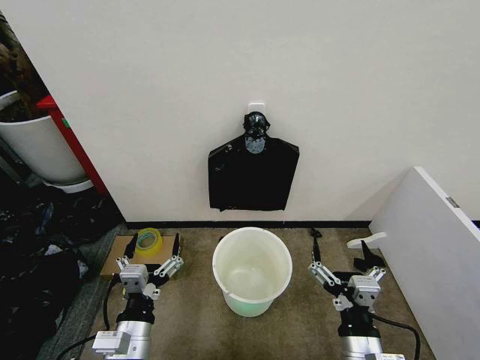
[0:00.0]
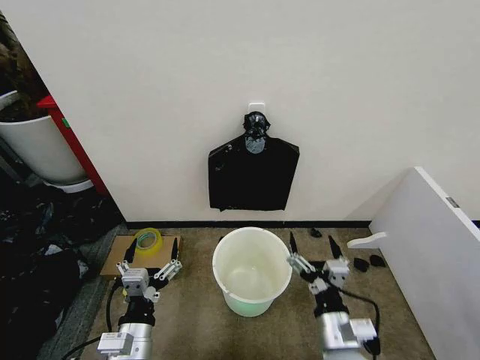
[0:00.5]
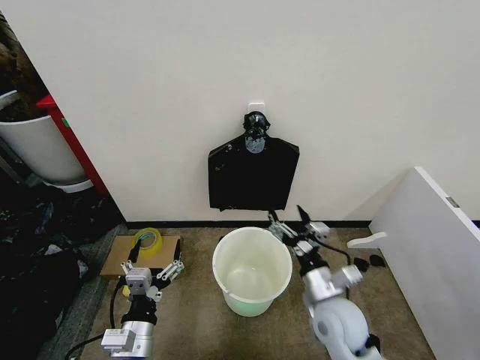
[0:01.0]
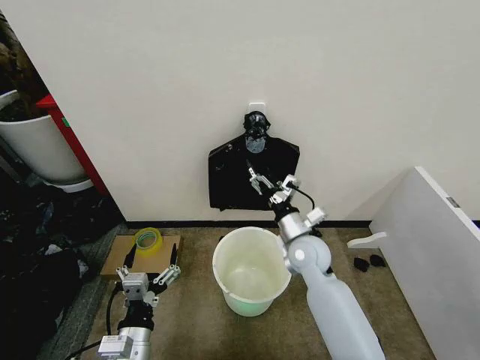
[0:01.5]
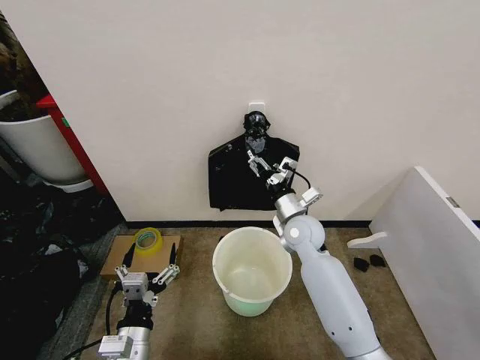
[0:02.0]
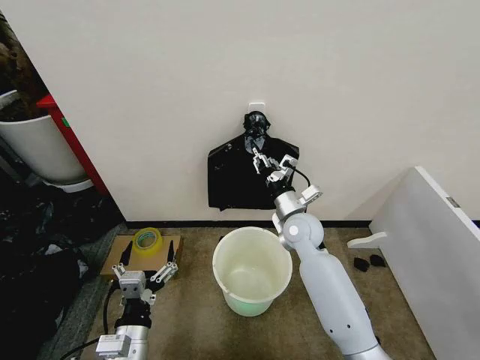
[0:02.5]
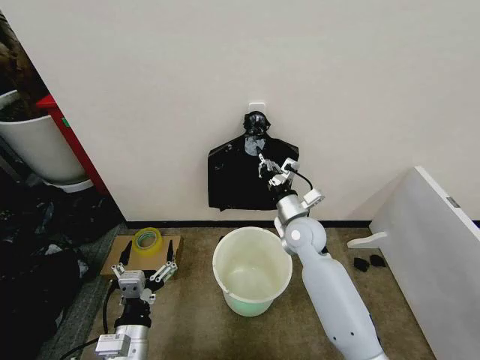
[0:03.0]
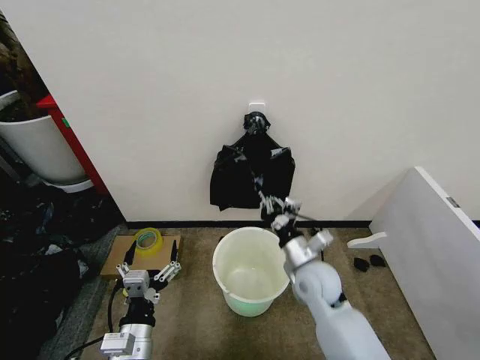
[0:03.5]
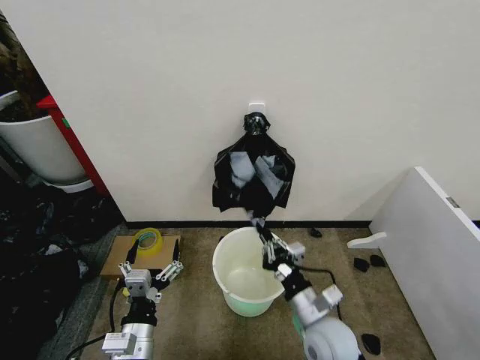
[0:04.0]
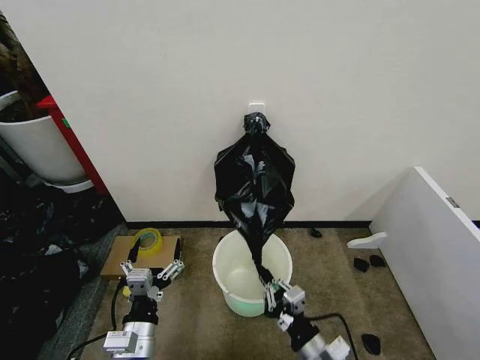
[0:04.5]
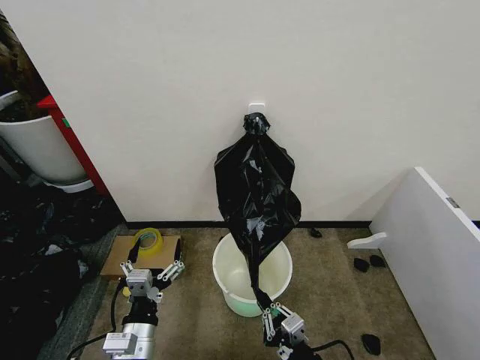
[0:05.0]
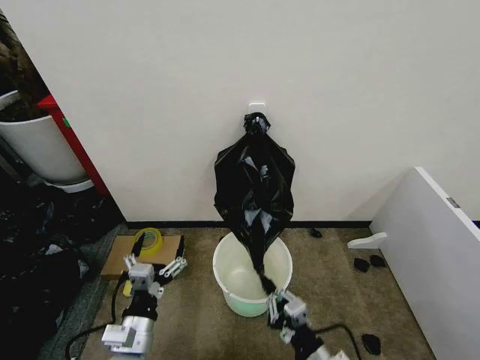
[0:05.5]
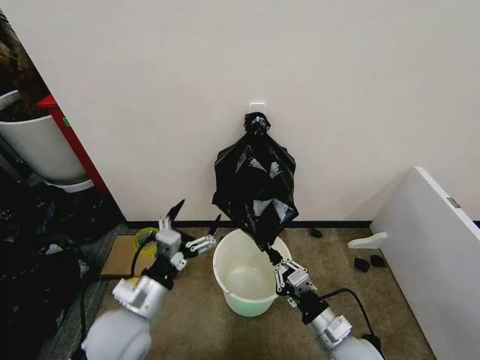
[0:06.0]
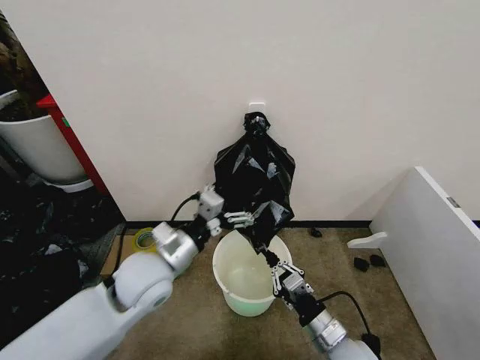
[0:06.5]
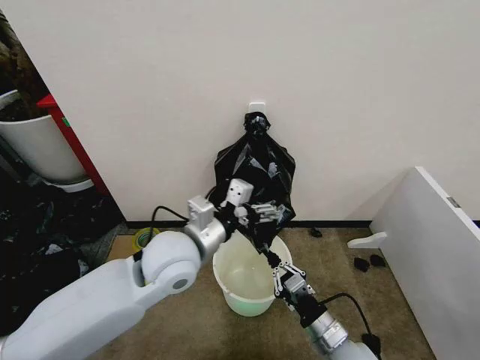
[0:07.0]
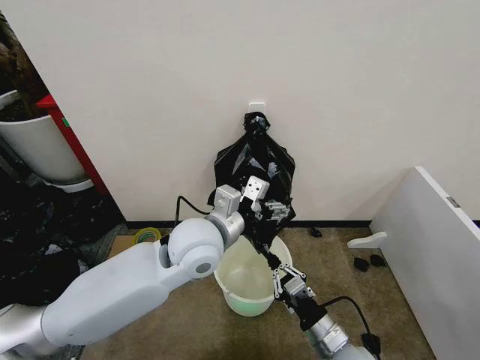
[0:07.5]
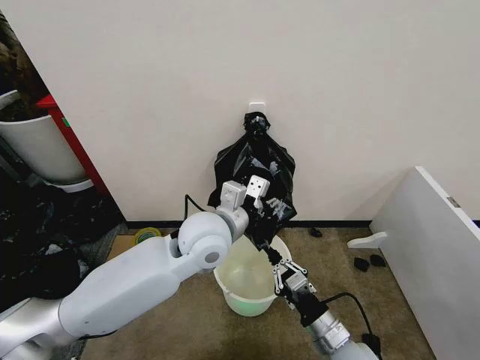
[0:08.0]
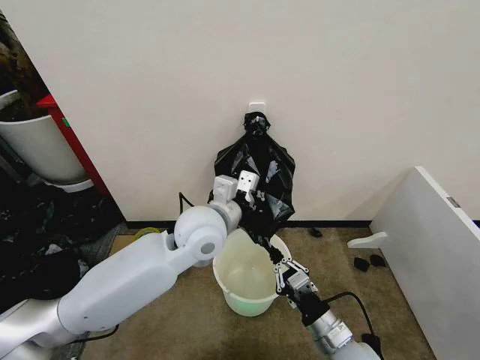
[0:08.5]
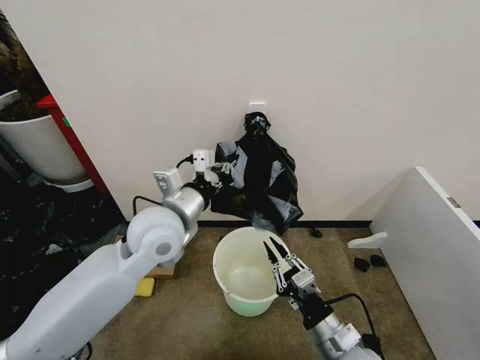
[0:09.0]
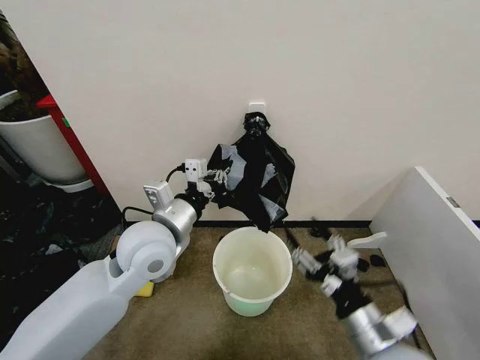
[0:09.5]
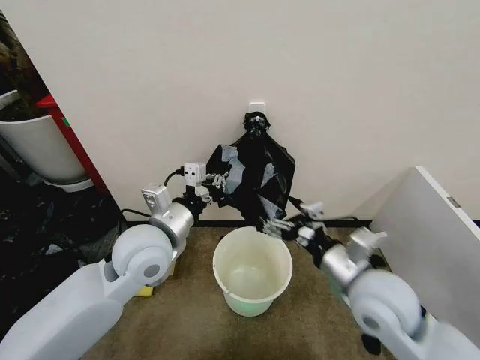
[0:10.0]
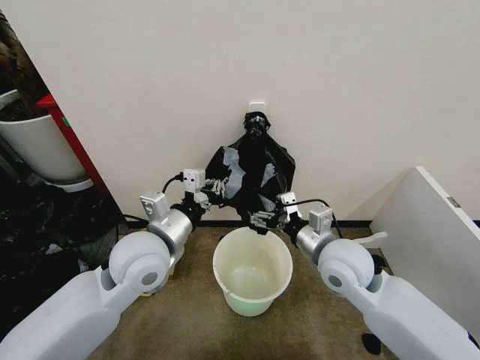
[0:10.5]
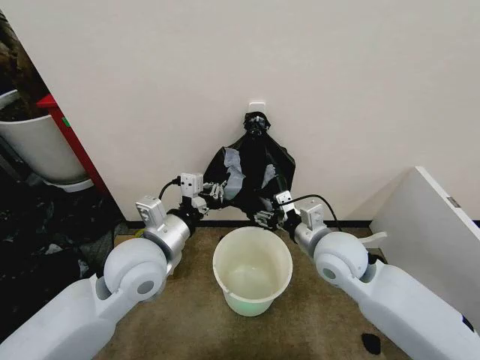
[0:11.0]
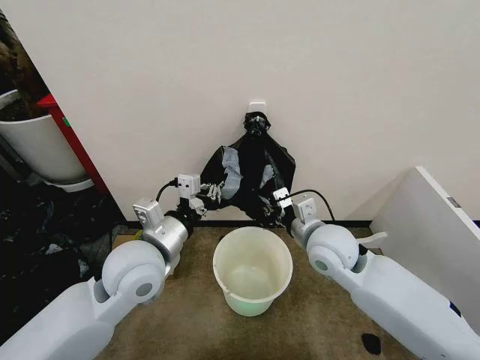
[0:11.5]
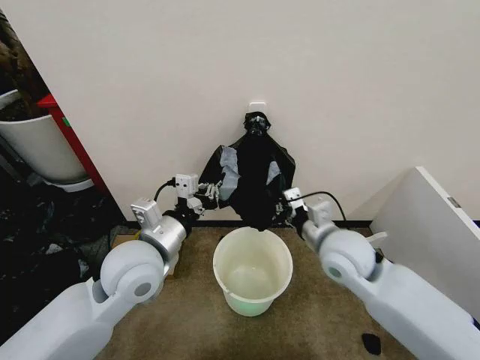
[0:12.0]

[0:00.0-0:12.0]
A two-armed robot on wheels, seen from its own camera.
Task of the whole recording: Place the garbage bag over the trash bin.
0:02.0 to 0:04.0: The right gripper heads backward, covering approximately 20 cm, and closes.
0:04.0 to 0:06.0: The right gripper moves roughly 10 cm backward and comes back; the left gripper shifts some 10 cm forward and upward.
0:06.0 to 0:08.0: The left gripper goes approximately 25 cm to the right, forward and upward, and closes.
0:08.0 to 0:10.0: The right gripper heads upward and forward, covering roughly 20 cm, and opens up. Meanwhile the left gripper goes about 10 cm to the left, and closes its fingers.
0:10.0 to 0:12.0: The right gripper goes approximately 10 cm forward, and closes.

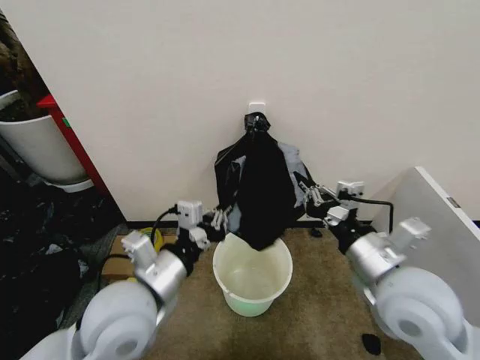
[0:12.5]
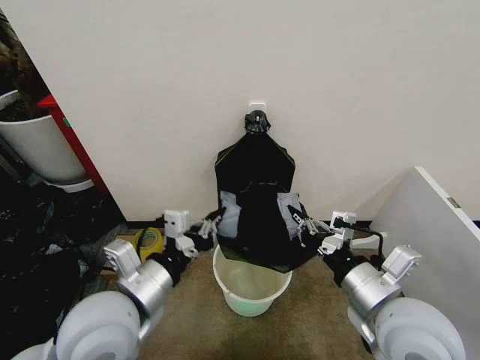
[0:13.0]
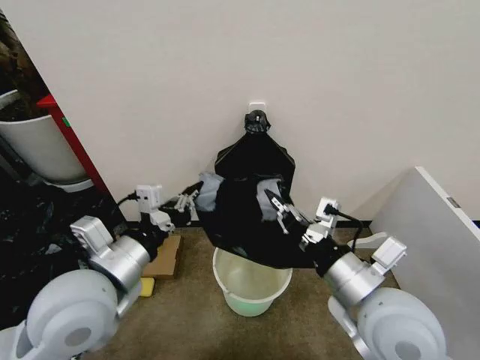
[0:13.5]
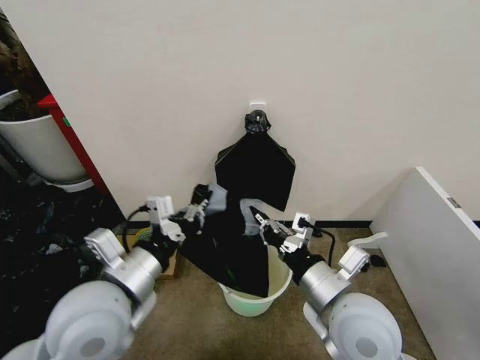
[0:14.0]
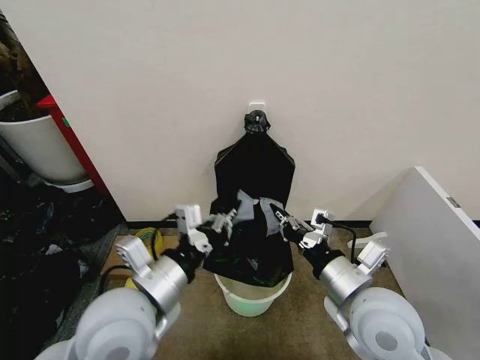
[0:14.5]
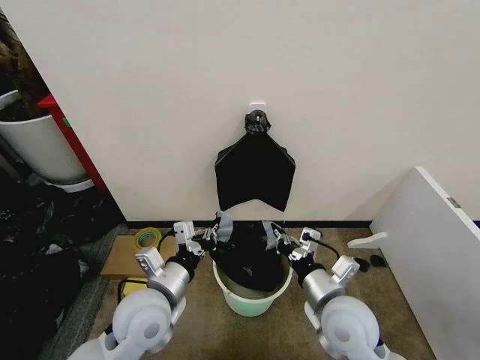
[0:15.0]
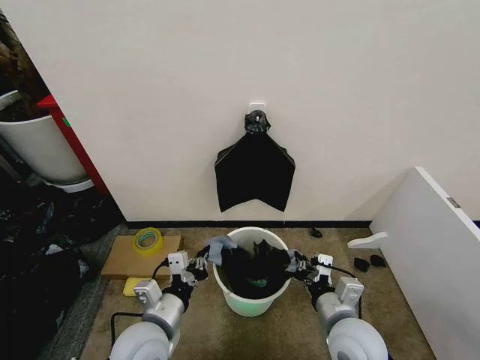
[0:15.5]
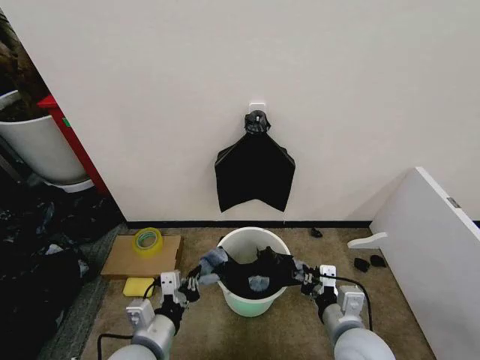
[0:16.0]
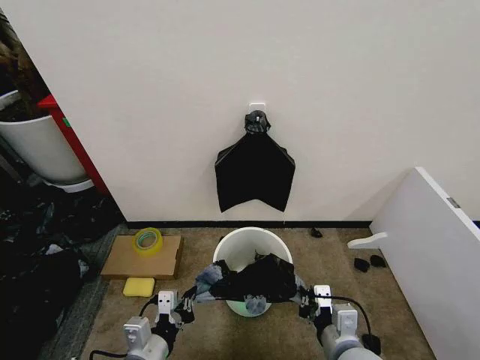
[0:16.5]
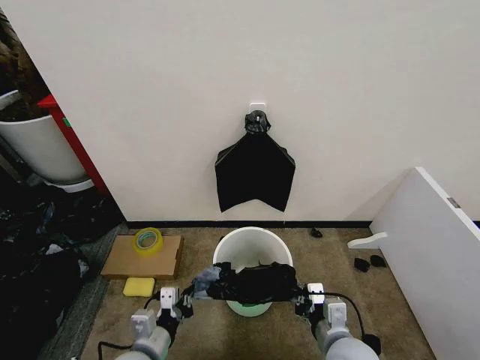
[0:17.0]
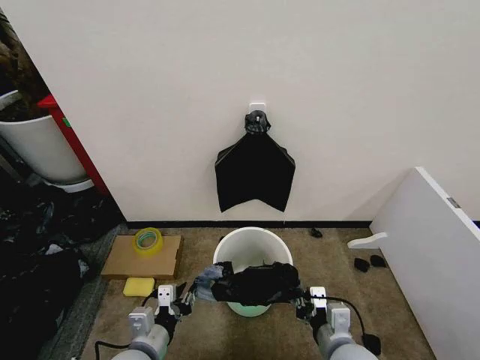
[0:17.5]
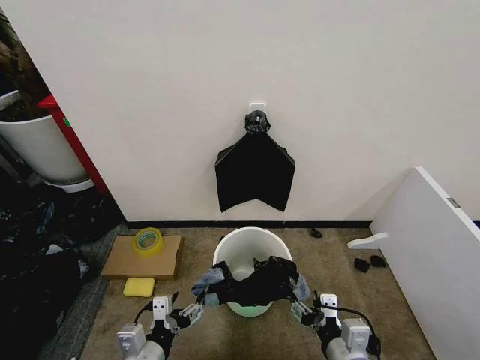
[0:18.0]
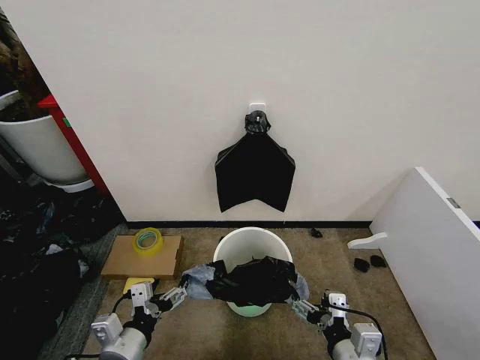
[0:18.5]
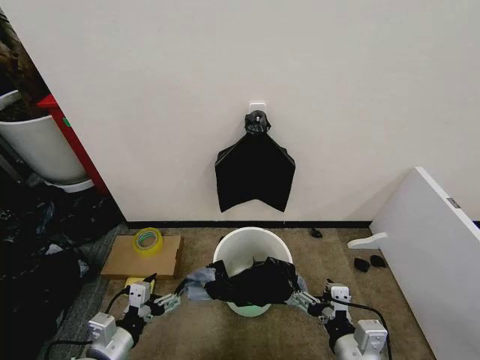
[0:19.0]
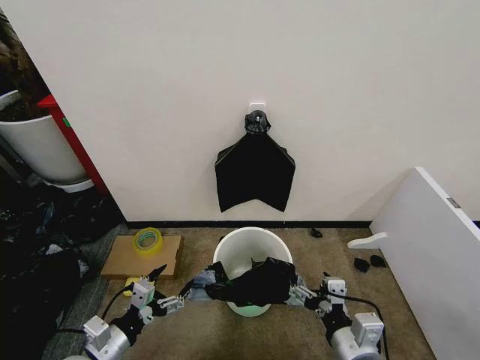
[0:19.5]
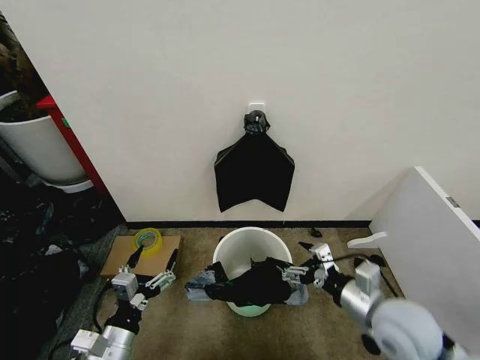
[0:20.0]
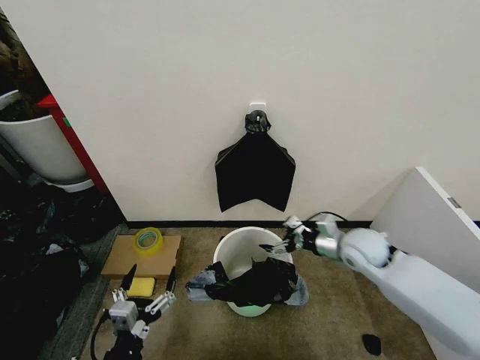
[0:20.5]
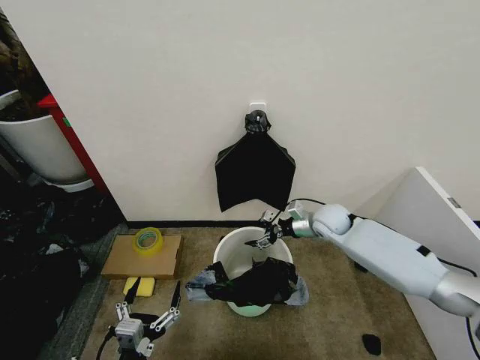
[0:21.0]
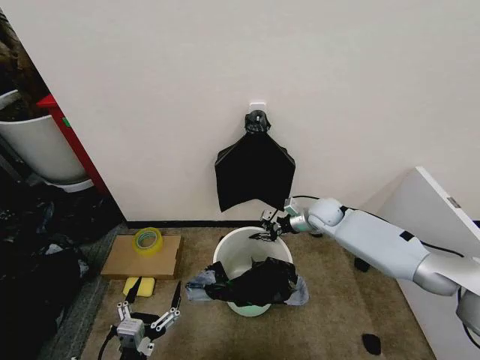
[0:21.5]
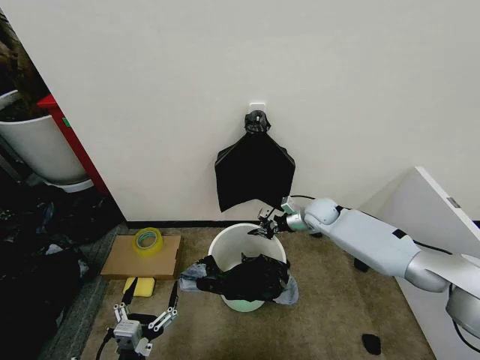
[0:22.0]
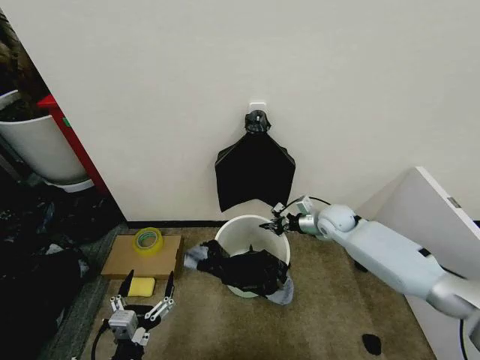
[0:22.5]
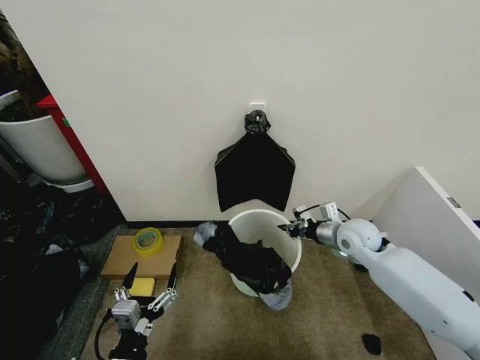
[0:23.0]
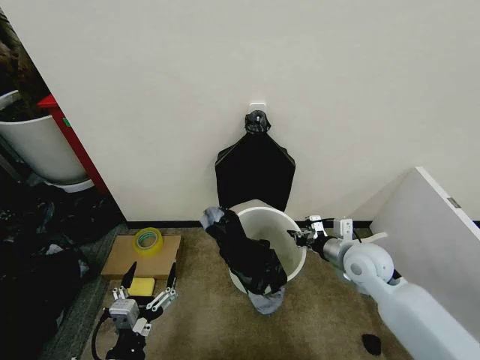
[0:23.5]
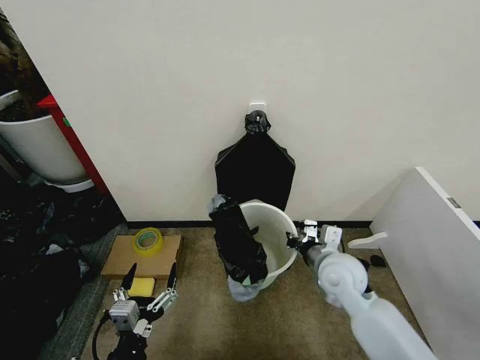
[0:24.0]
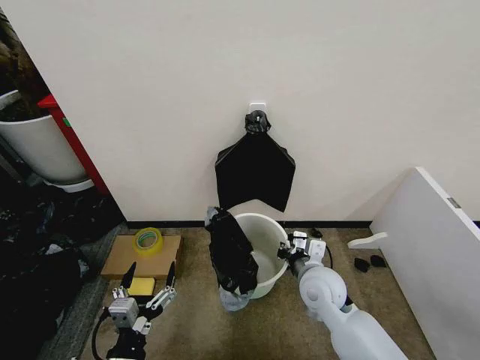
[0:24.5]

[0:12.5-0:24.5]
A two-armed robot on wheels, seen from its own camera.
Task of the whole recording: Place the garbage bag over the trash bin.
0:12.5 to 0:14.5: The right gripper shifts by about 5 cm.
0:14.5 to 0:16.5: The right gripper shifts roughly 15 cm downward and backward. The left gripper shifts some 15 cm downward.
0:16.5 to 0:18.5: The right gripper opens up; the left gripper opens up.
0:18.5 to 0:20.5: The right gripper heads forward, covering approximately 25 cm. The left gripper travels backward by roughly 5 cm.
0:20.5 to 0:22.5: The right gripper heads forward, covering some 10 cm, and closes its fingers.
0:22.5 to 0:24.5: The right gripper shifts approximately 20 cm backward and to the left.

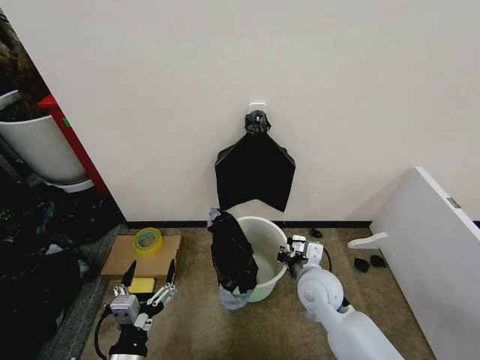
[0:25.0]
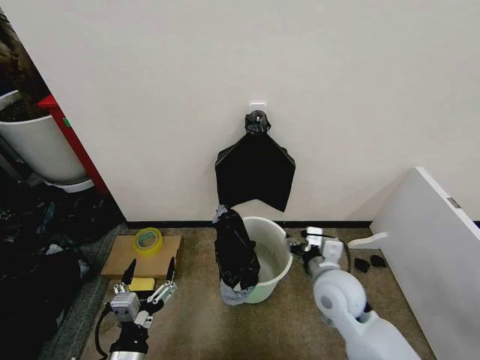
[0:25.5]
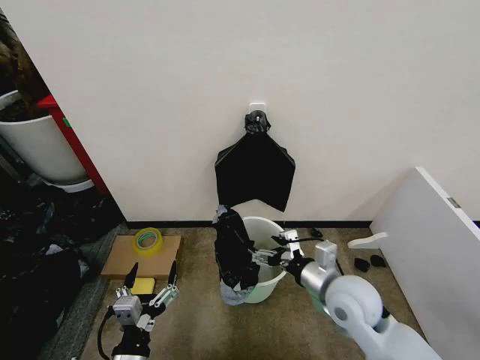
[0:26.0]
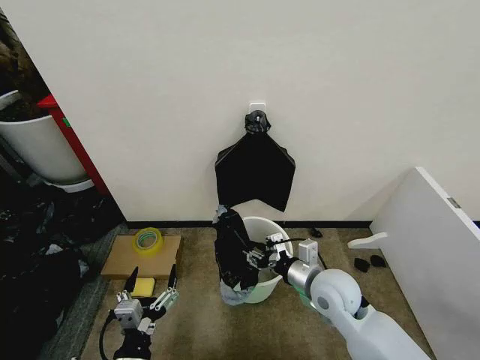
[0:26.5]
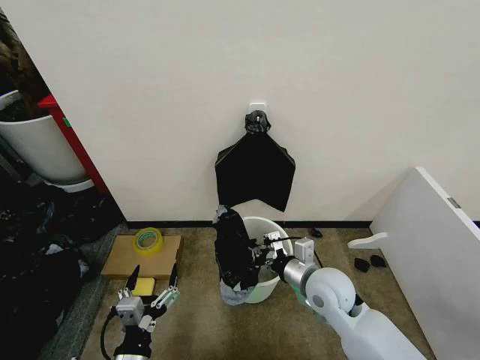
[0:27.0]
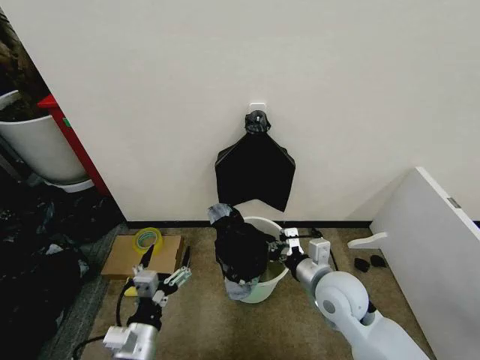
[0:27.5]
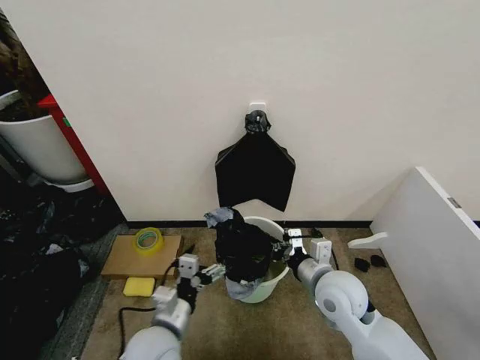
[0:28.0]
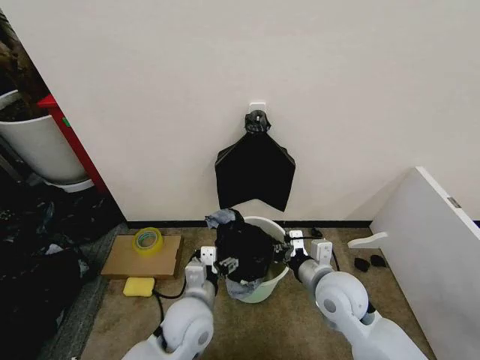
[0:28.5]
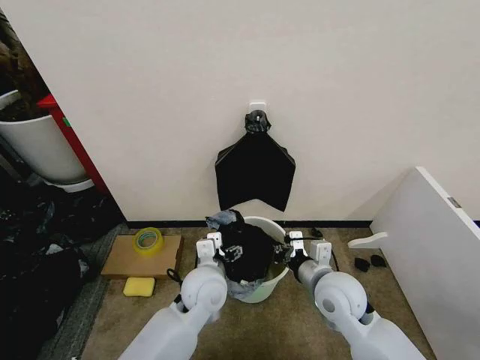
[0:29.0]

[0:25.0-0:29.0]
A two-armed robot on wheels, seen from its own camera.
Task of the whole recording: Place the garbage bag over the trash bin.
0:25.0 to 0:27.0: The right gripper opens, then closes once more.
0:27.0 to 0:29.0: The left gripper goes about 25 cm forward and to the right.
